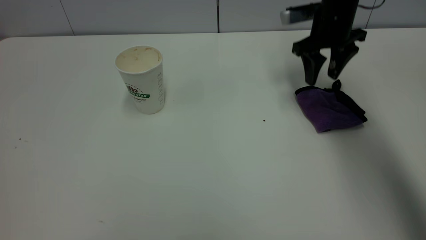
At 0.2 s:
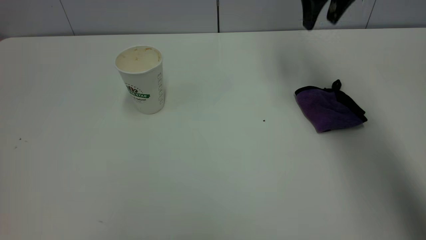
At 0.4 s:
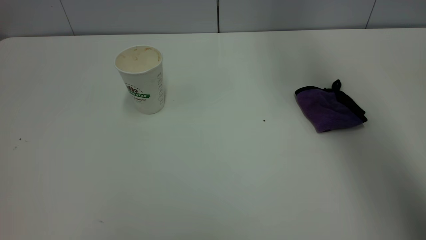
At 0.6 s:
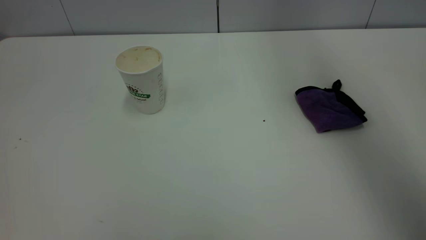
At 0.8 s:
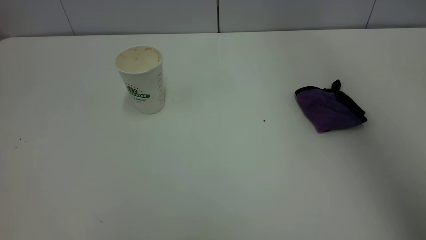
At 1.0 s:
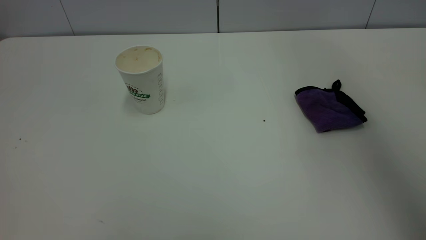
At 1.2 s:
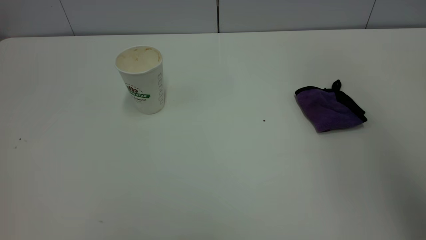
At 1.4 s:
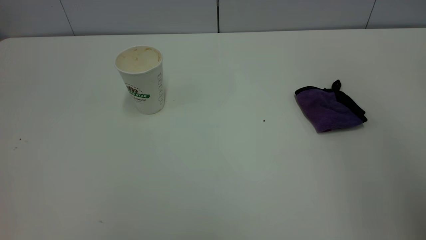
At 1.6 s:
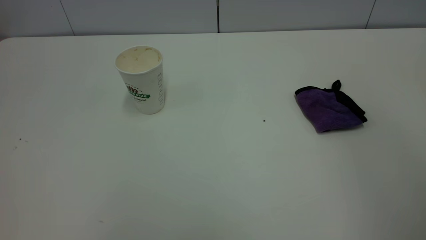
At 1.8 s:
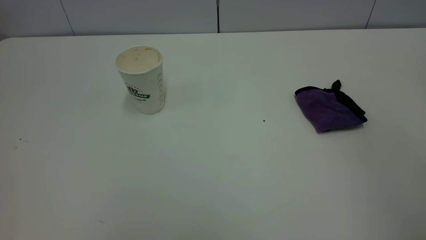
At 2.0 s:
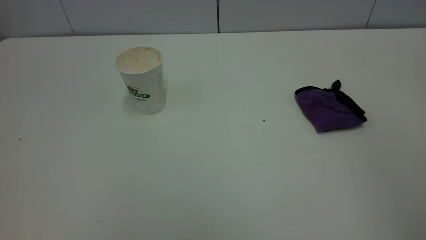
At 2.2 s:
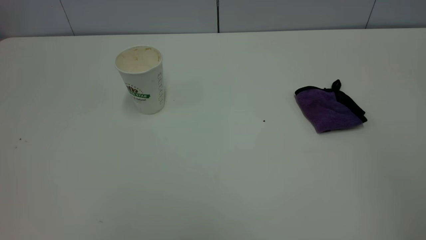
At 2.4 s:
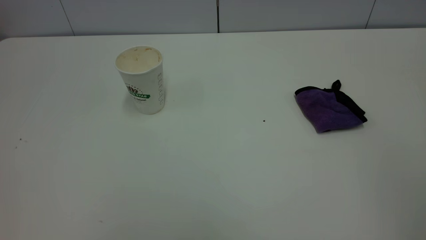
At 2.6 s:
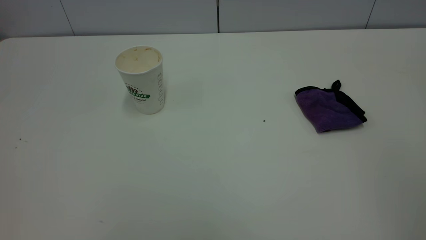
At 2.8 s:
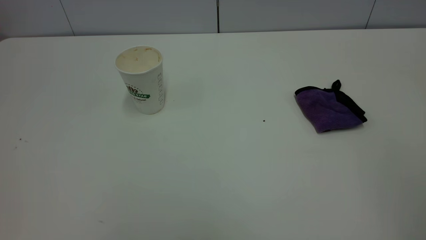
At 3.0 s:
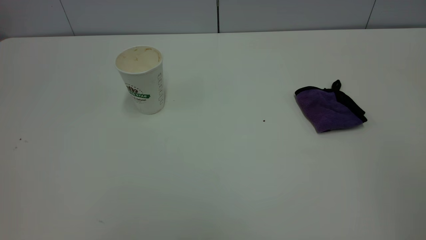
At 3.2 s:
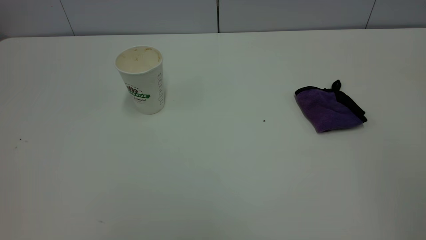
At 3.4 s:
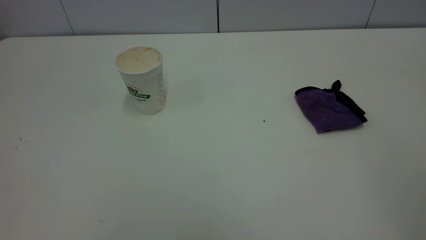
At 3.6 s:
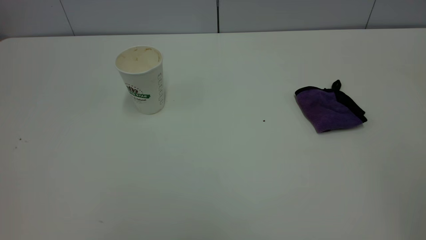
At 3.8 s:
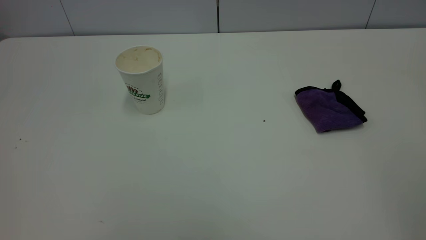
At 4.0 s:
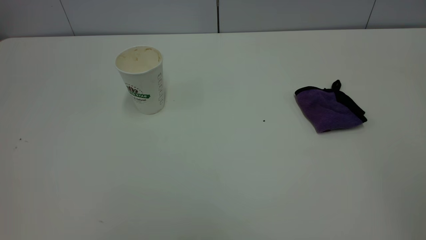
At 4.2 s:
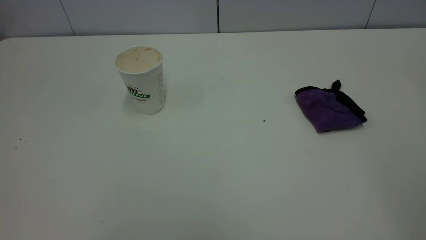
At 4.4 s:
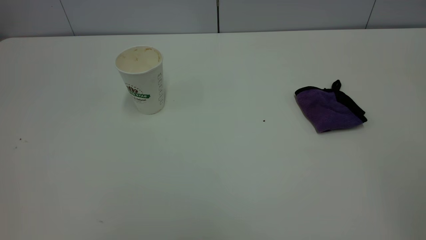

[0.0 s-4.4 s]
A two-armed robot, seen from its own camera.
Task of the whole recording: the left gripper pick up the fallen cup and place it upright, the right gripper grasp the purple rag and wipe the tea stain on the table, the right gripper put the purple rag back in its original position.
0.0 to 1.4 s: The right gripper shifts some 40 cm backward and upward.
